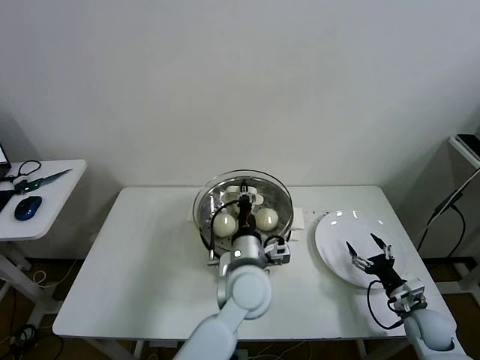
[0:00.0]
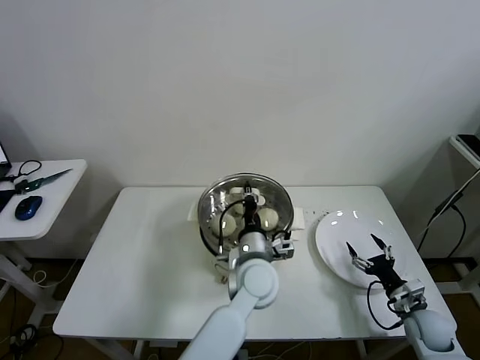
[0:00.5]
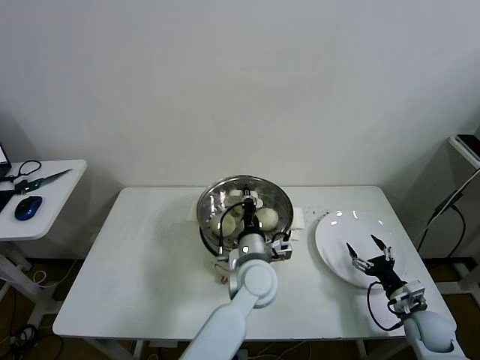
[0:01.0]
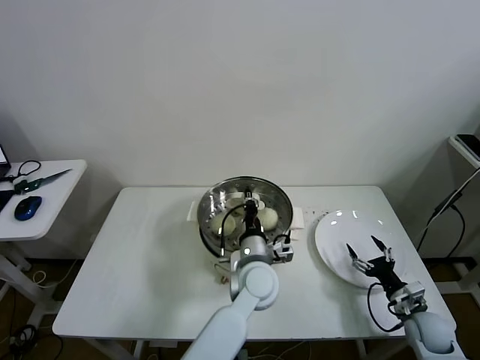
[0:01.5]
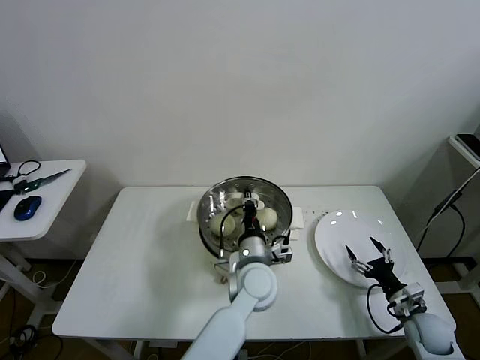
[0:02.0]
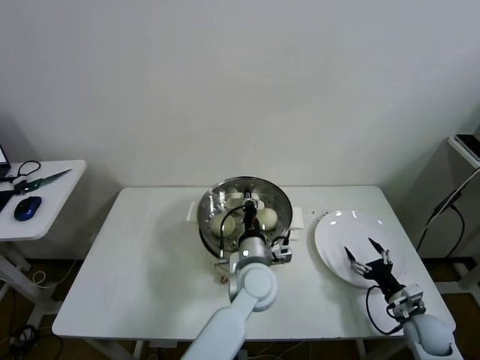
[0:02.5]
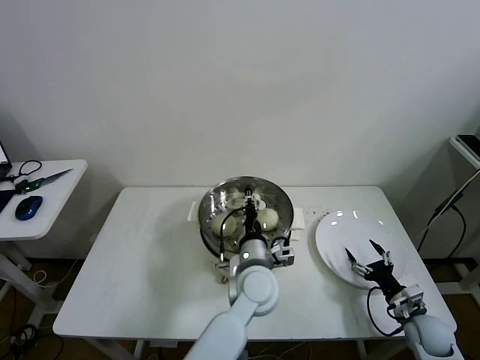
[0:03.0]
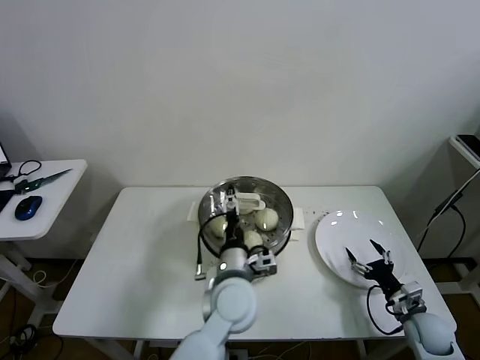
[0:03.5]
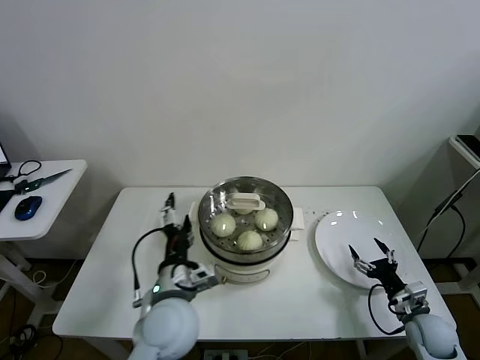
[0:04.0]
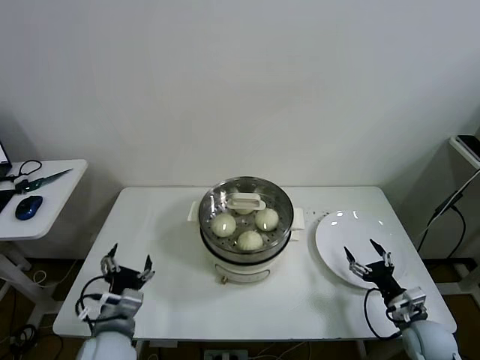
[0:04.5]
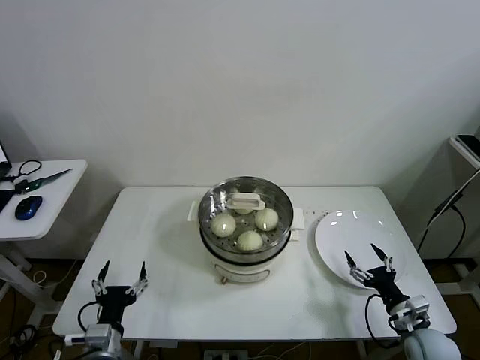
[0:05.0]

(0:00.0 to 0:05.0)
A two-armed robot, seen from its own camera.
Task of the whole recording: take steamed baozi put them in steamer then cover it.
Step, 0:00.0 - 0:02.5: Place the pot lid on the steamer with left gripper.
0:00.0 - 0:02.5: The left gripper moves downward, about 5 cm.
0:02.5 - 0:05.0: The right gripper shifts by about 5 cm; the left gripper goes approximately 35 cm to the left and backward, and opens.
